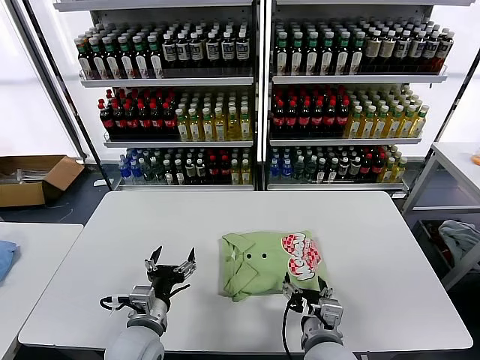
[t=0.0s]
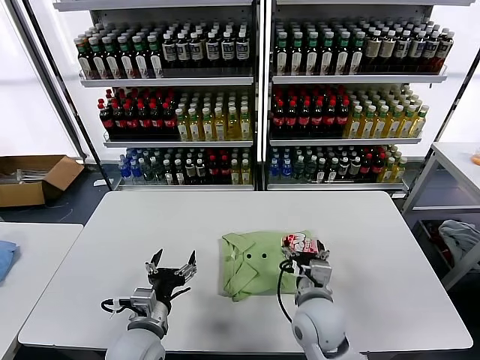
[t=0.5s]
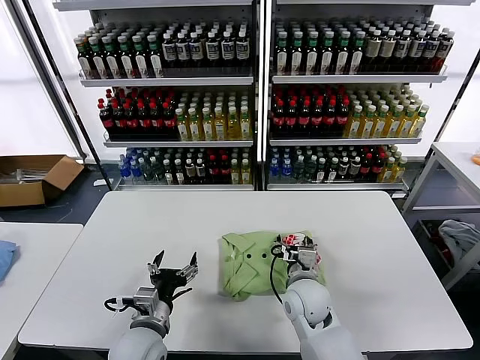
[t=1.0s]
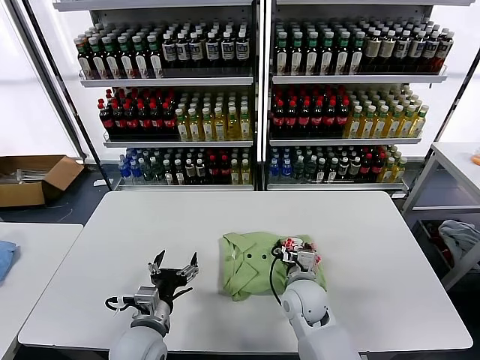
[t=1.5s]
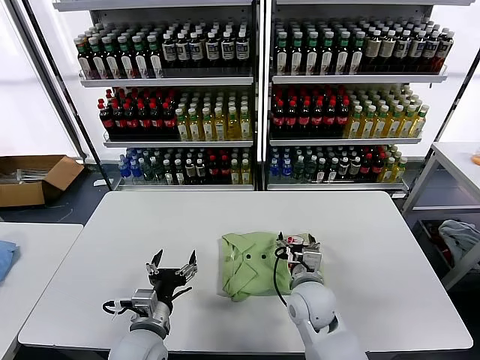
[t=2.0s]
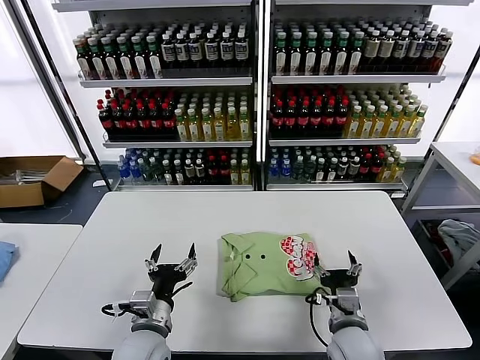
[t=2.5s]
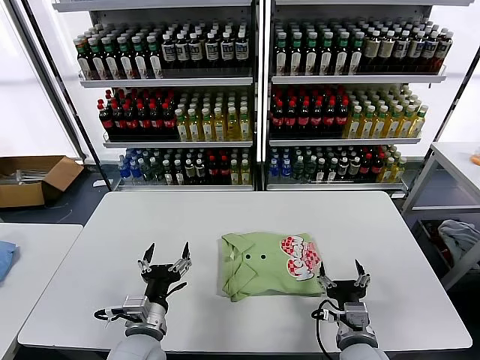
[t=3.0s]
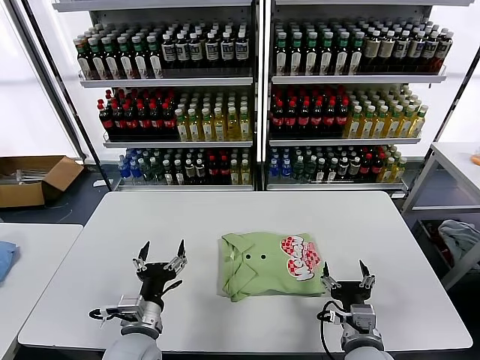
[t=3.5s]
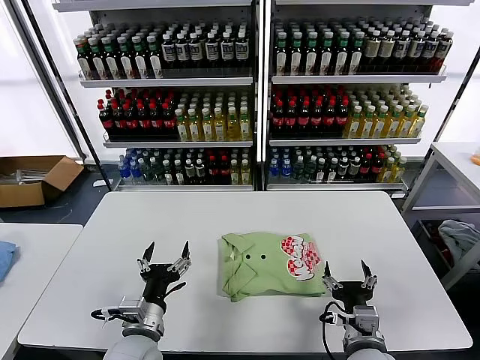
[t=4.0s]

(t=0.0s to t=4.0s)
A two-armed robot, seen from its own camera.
Task of the whole recording: fold and organize the clothes.
Step, t=0.0s - t=2.0s: Drag the clothes to the center of the table.
t=0.0s - t=2.0s: The right gripper travels forward by roughly 15 cm.
t=2.0s - t=4.0s: The right gripper heads backward and to the right, covering approximately 15 cm.

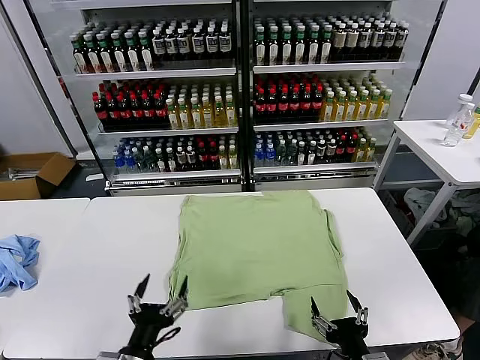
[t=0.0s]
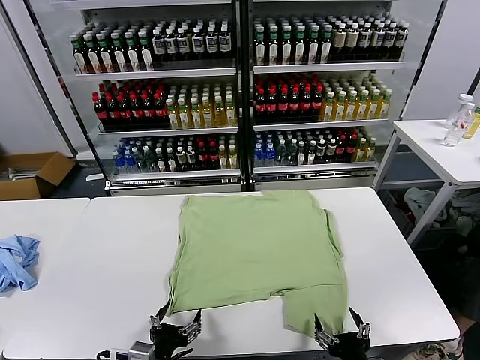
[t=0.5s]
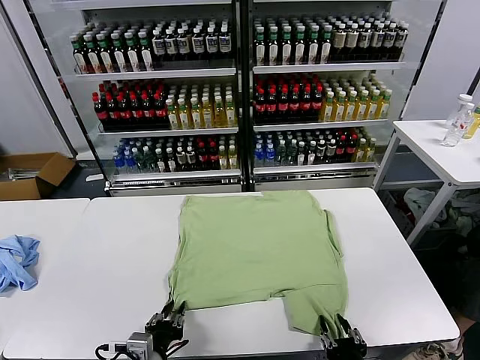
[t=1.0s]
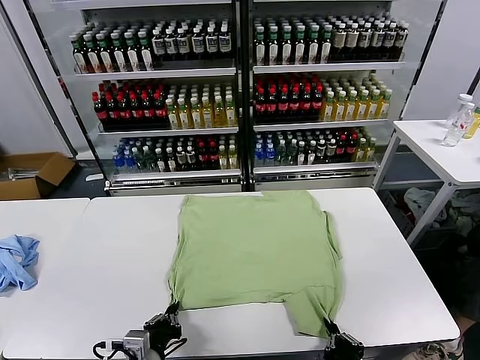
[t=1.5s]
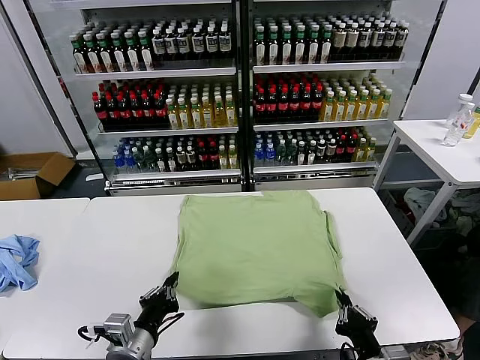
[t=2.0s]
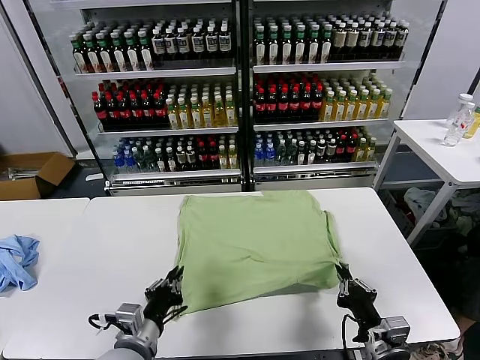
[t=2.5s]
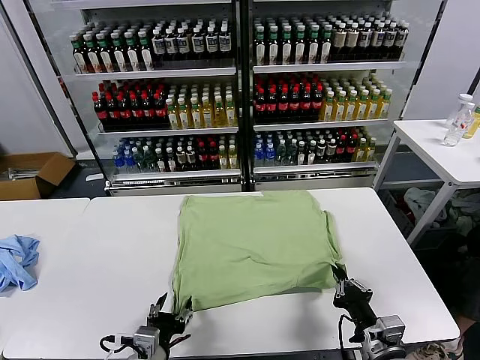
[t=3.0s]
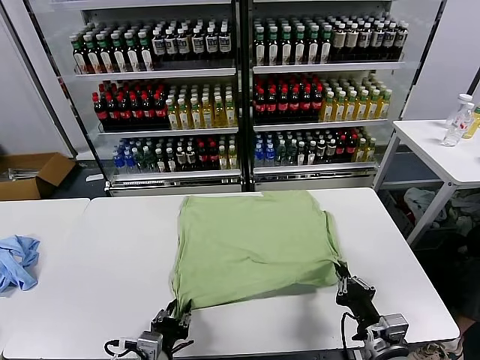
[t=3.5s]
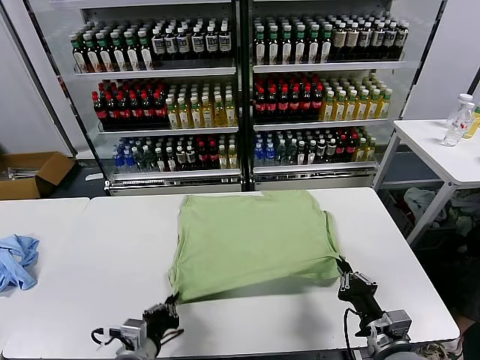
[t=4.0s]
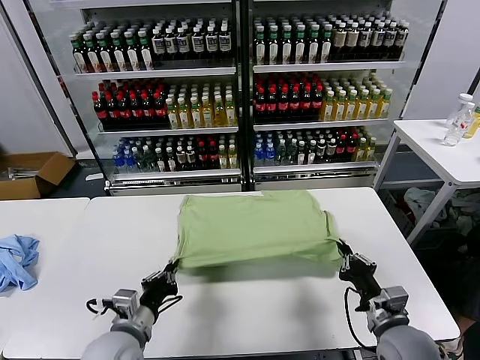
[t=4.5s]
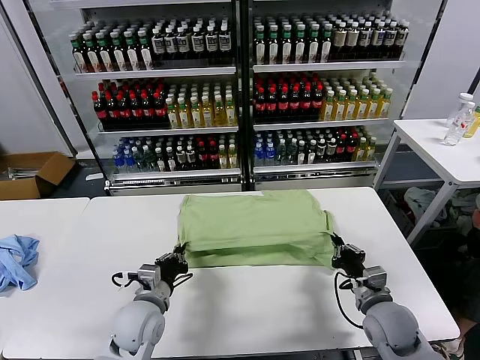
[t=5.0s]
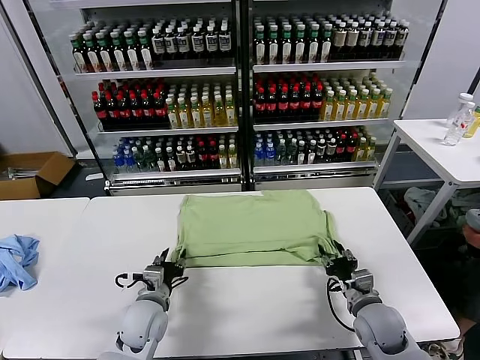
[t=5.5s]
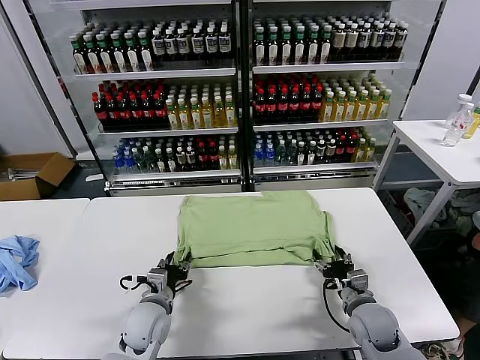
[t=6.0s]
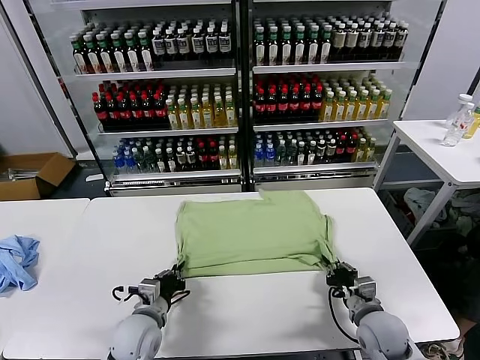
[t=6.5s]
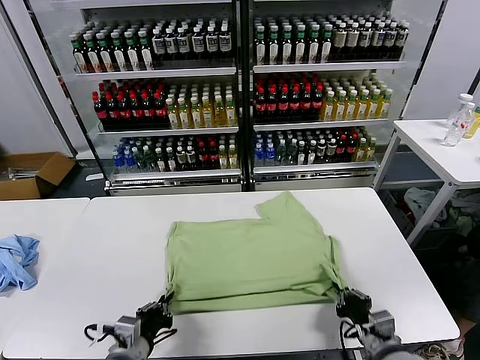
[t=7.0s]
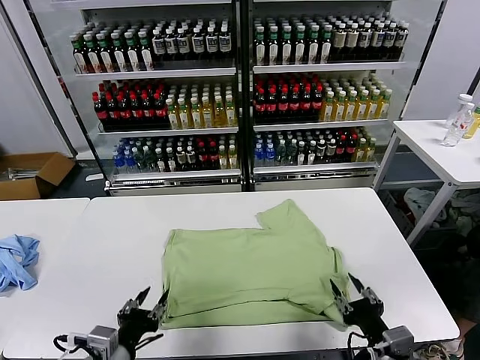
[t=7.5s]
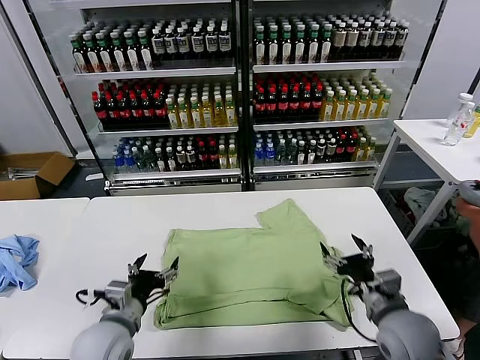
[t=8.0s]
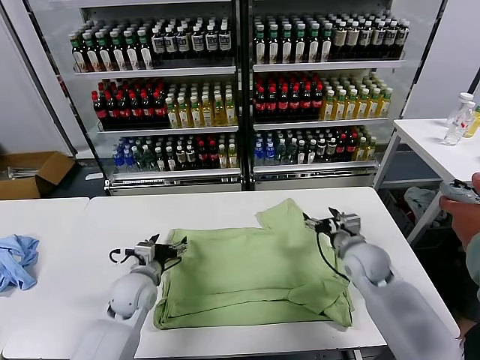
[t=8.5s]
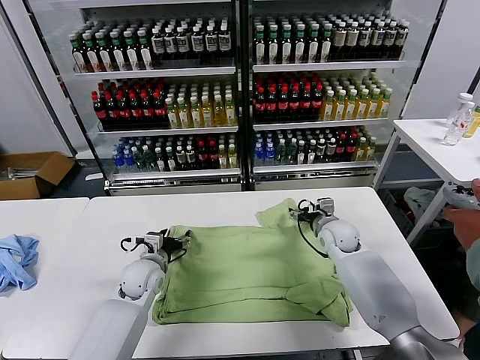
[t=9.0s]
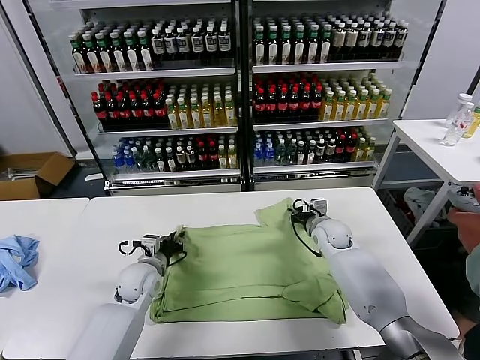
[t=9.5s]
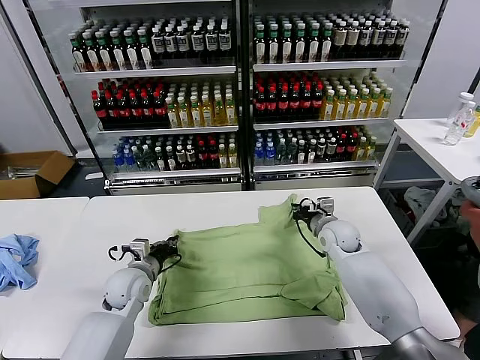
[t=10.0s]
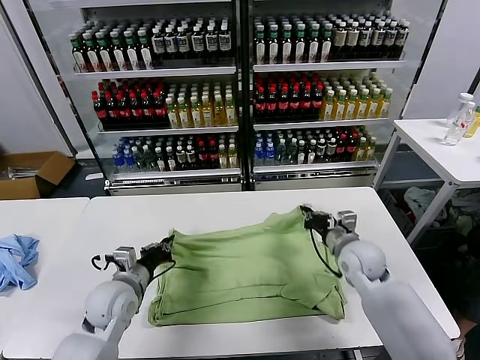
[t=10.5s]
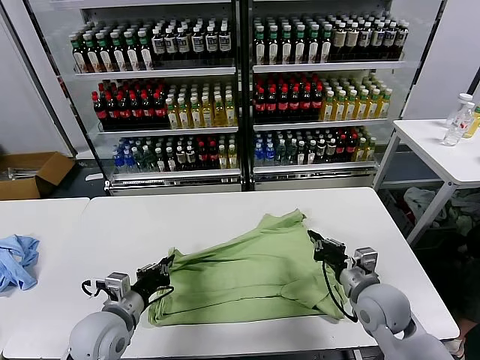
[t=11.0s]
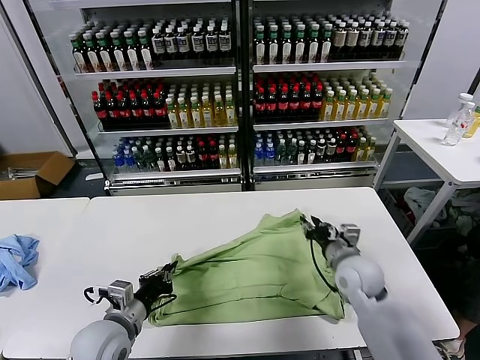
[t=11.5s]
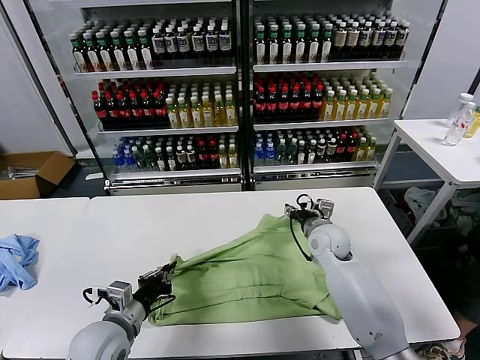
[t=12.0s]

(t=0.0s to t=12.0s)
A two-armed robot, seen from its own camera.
Task of the whole recording: fold and organize the clothes.
Step, t=0.0s - t=1.0s: use both grippers simultaneously to clamp the lower edge of the clothing fabric.
Step, t=1.5s - t=5.5s: use both grippers to drag the lower edge of the fabric forward and fold it over the upper edge.
Step, t=6.0s - t=7.0s: Drag the clothes downward with both gripper.
Step, t=7.5s - t=9.5s: use both grippers simultaneously to clamp the upper edge of the clothing fabric.
t=2.0s - t=4.0s: The right gripper goes approximately 5 cm forward; the left gripper opens, then closes once more.
t=4.0s - t=6.0s: The right gripper goes approximately 15 cm forward and downward, and opens up, while the left gripper moves forward, some 15 cm, and opens its fingers.
t=6.0s - t=8.0s: The right gripper travels upward by approximately 10 cm, moves about 15 cm backward and comes back, and closes, then opens again. Meanwhile the left gripper is displaced upward and backward by some 10 cm, and opens up.
t=8.0s - t=10.0s: The two grippers go roughly 20 cm forward. The left gripper closes. The right gripper closes its fingers.
t=10.0s - t=12.0s: The left gripper travels backward by roughly 15 cm; the right gripper travels backward and back again, about 20 cm each way, and opens.

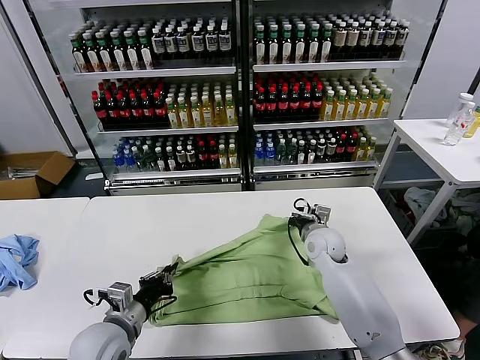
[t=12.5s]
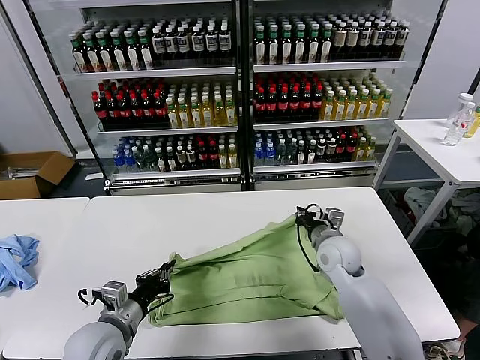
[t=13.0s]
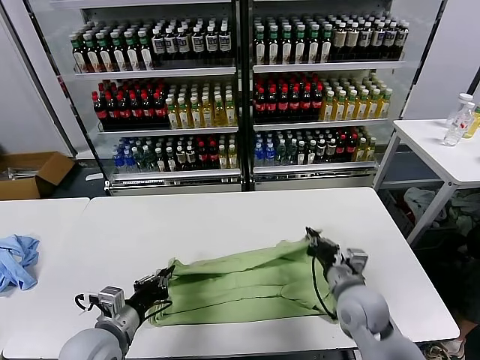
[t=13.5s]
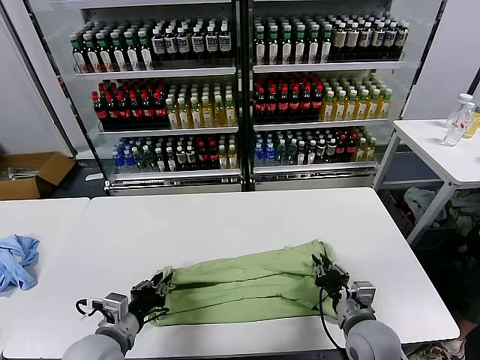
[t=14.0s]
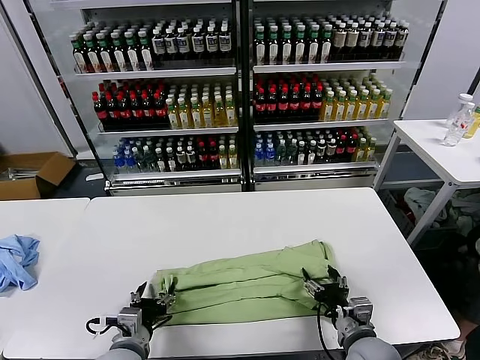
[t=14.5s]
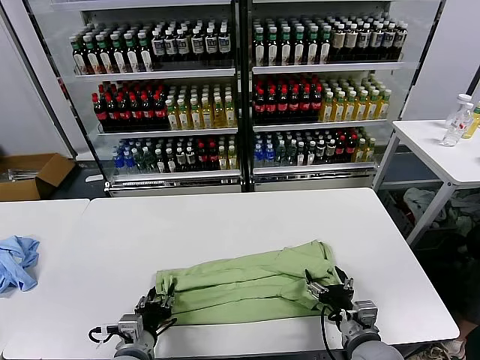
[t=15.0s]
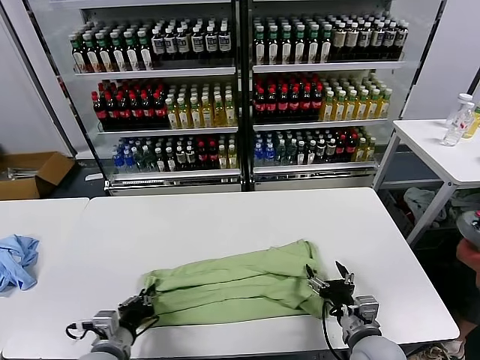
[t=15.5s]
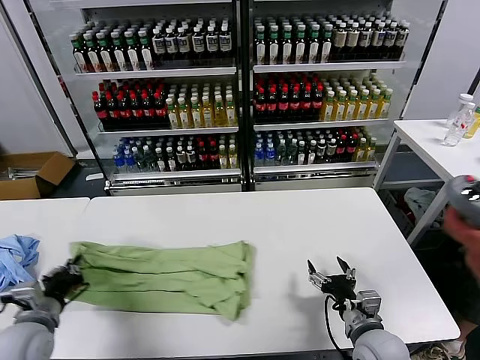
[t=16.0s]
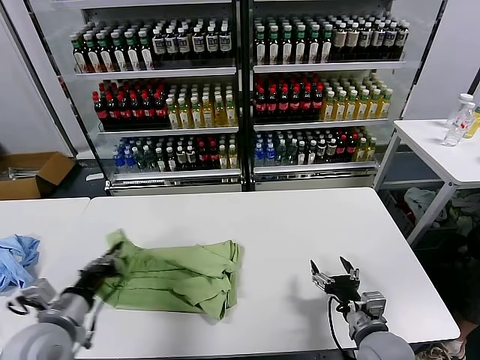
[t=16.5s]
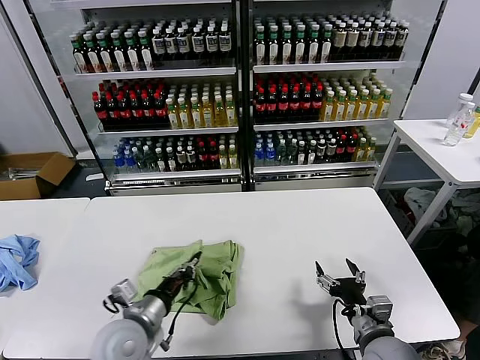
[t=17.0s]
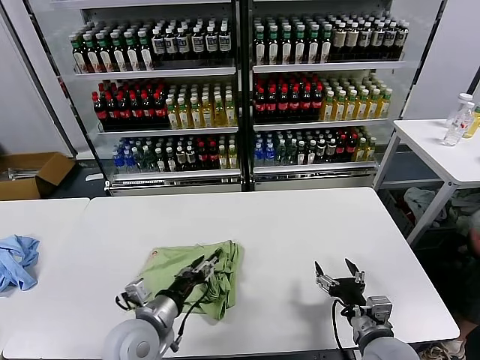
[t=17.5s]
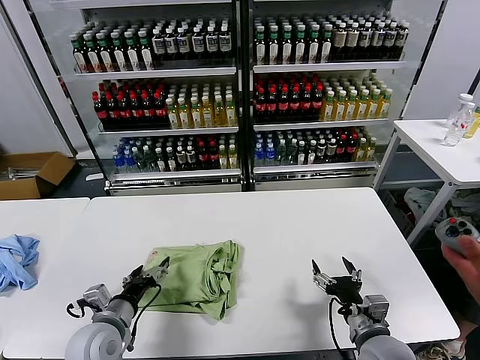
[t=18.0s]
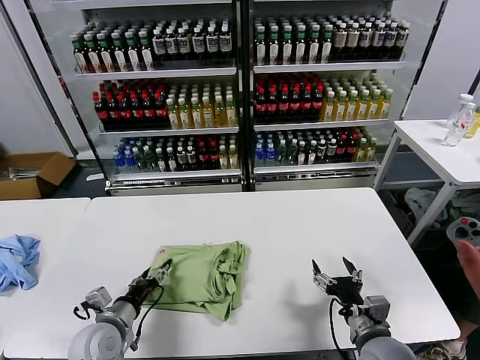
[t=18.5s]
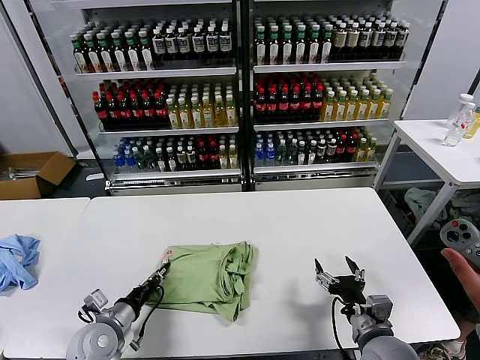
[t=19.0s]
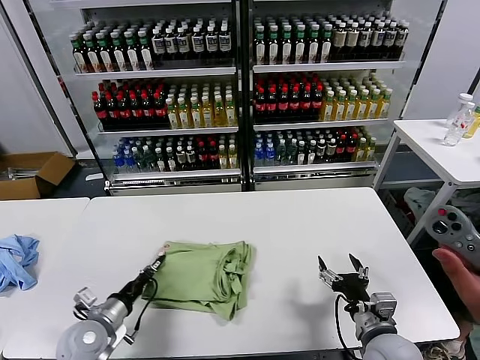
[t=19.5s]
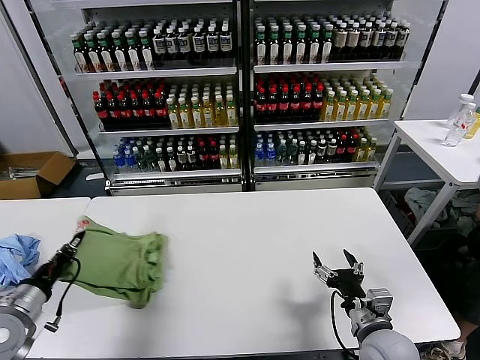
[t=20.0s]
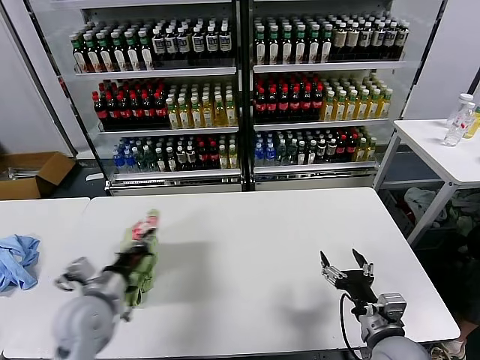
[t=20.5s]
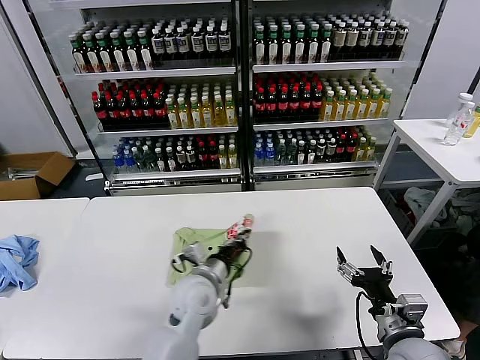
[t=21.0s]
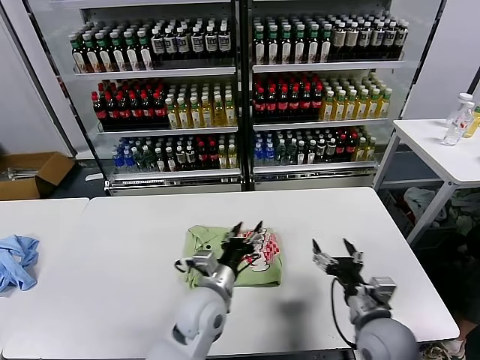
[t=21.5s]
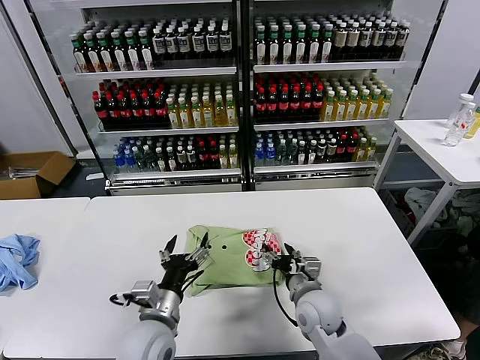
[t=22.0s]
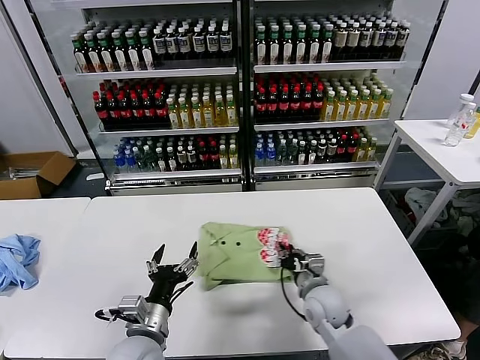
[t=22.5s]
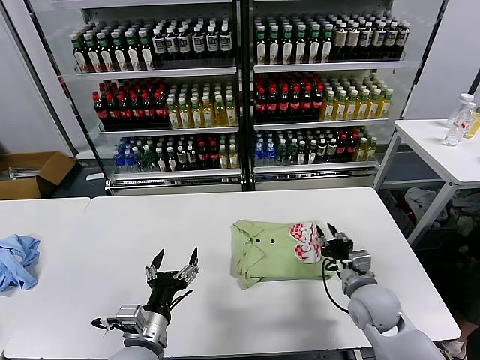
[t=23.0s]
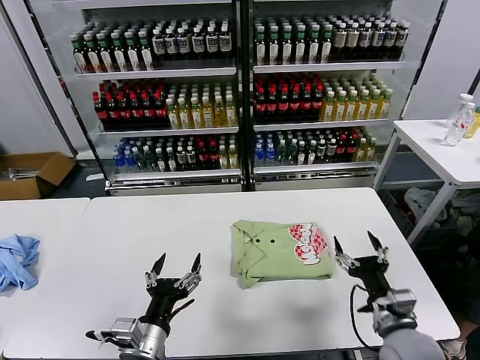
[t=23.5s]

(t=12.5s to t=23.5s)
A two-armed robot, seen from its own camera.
Task of the whole recording: fold and organize the clothes.
Step, t=14.5s - t=15.0s: use the left gripper to clamp the left edge of the fabric.
Step, t=15.5s - t=17.0s: use the left gripper to drag the left edge of the fabric to the left and folds it over the right edge.
Step, t=18.0s - t=21.0s: Flip the folded clothes over with left gripper.
Step, t=21.5s - t=23.0s: Drag the clothes to the center of the table.
t=12.5s - t=14.5s: The right gripper goes about 25 cm backward, and opens. Meanwhile the left gripper ends up approximately 5 cm from where it was, and opens its fingers.
t=14.5s - t=16.0s: The left gripper goes roughly 15 cm to the left, and closes.
t=16.0s - t=18.0s: The left gripper moves to the right, some 10 cm, and opens.
t=18.0s - t=20.0s: The left gripper travels to the left by approximately 15 cm, and closes up.
t=20.0s - t=21.5s: The left gripper is displaced to the right by roughly 35 cm, and opens.
t=21.5s - t=23.5s: The right gripper moves approximately 10 cm to the left and comes back, and closes, then opens again. The left gripper goes roughly 15 cm backward and to the left, and opens its fingers.
